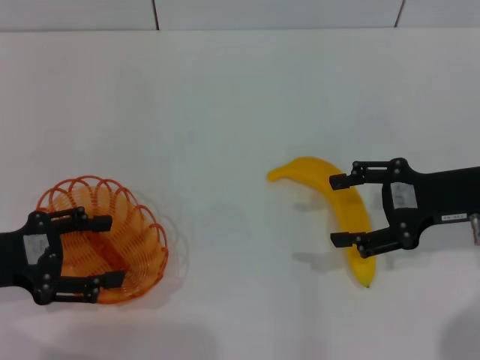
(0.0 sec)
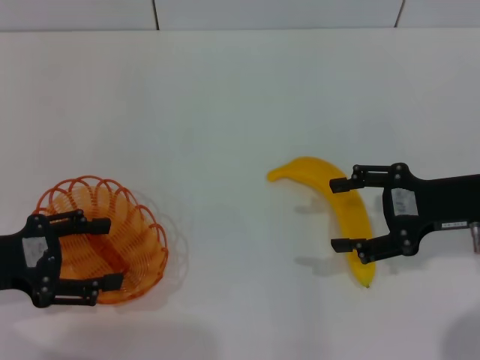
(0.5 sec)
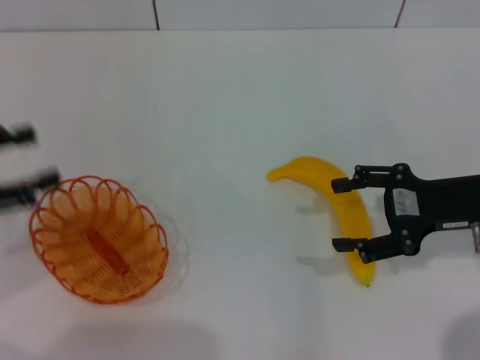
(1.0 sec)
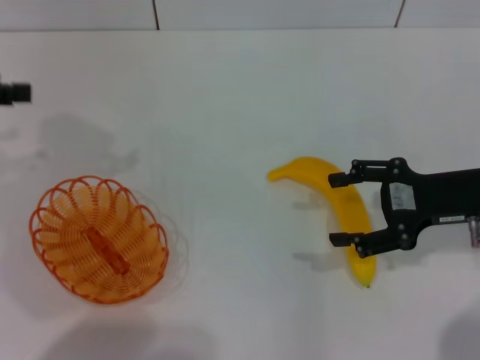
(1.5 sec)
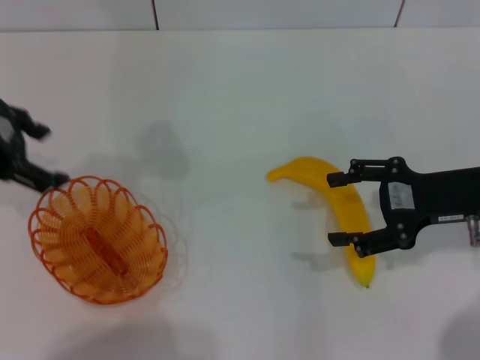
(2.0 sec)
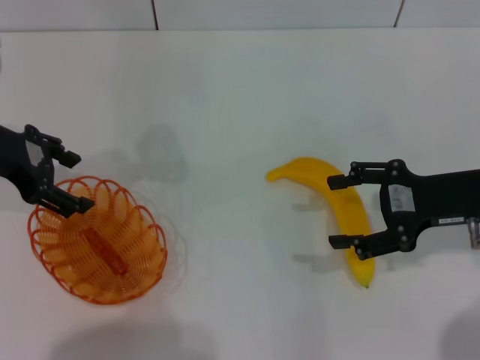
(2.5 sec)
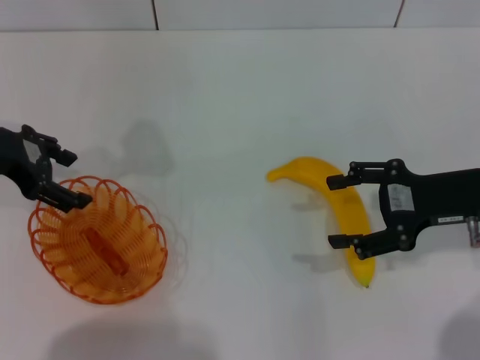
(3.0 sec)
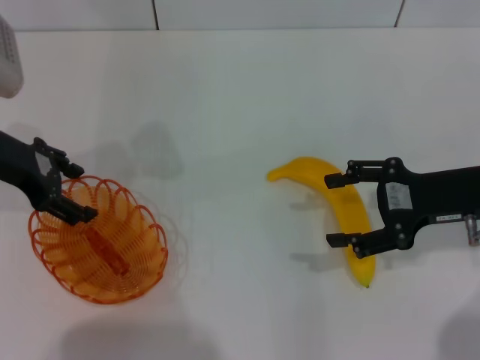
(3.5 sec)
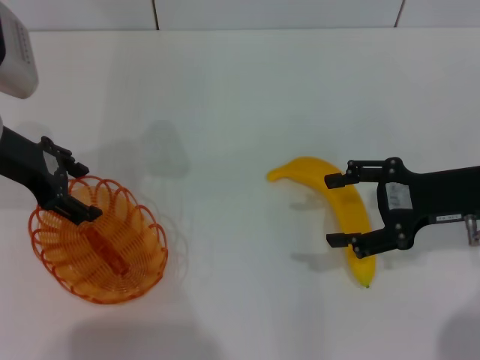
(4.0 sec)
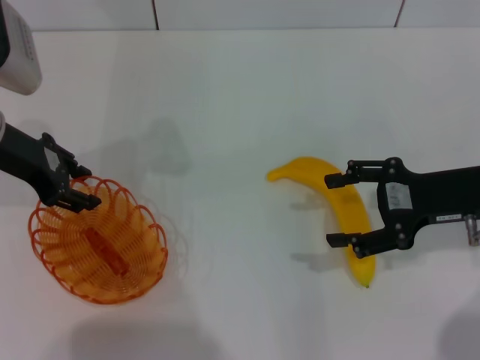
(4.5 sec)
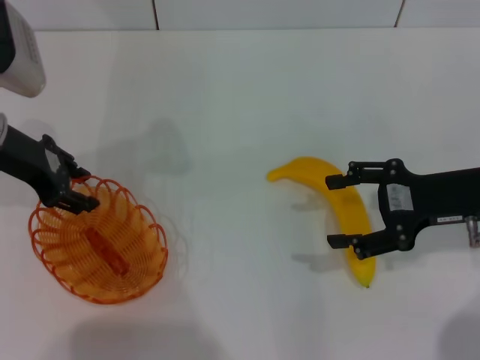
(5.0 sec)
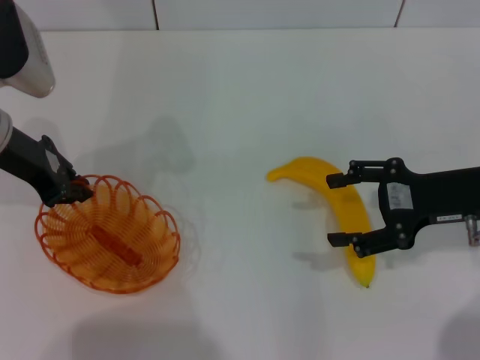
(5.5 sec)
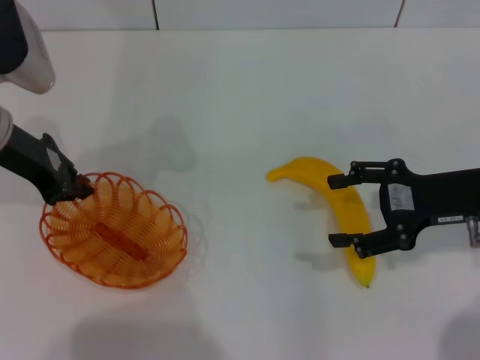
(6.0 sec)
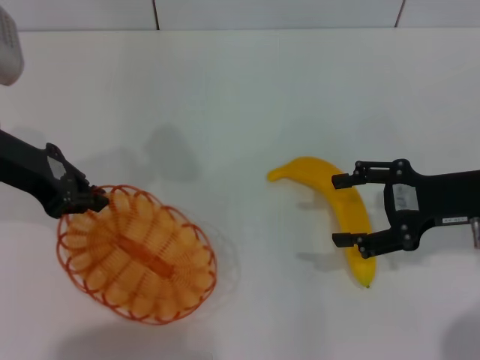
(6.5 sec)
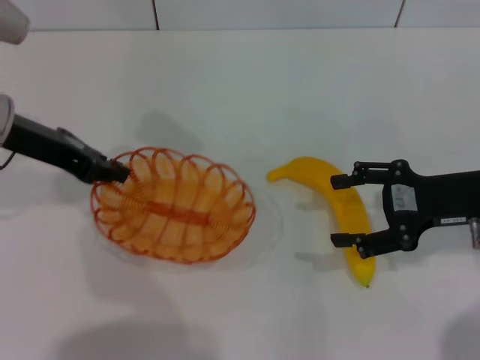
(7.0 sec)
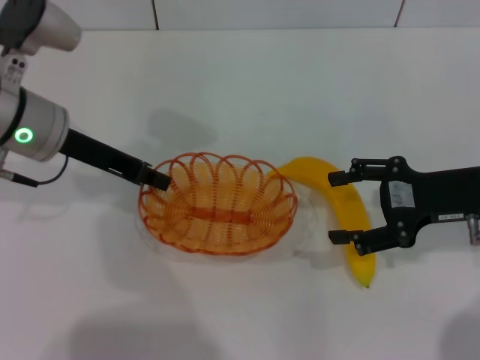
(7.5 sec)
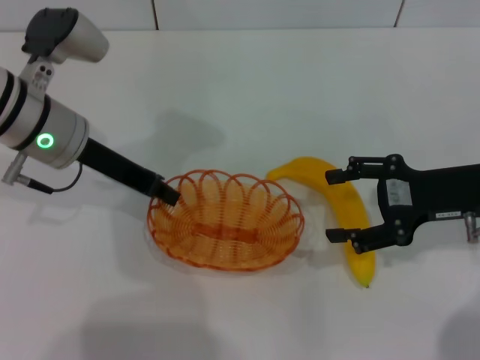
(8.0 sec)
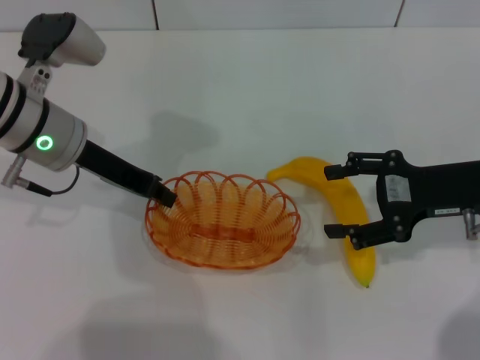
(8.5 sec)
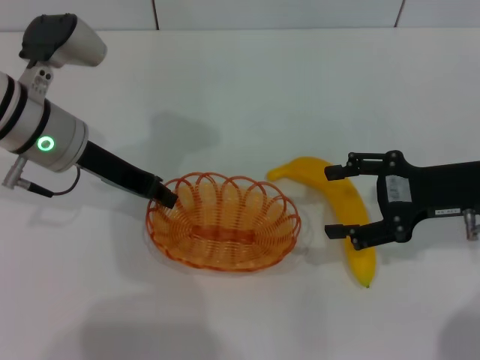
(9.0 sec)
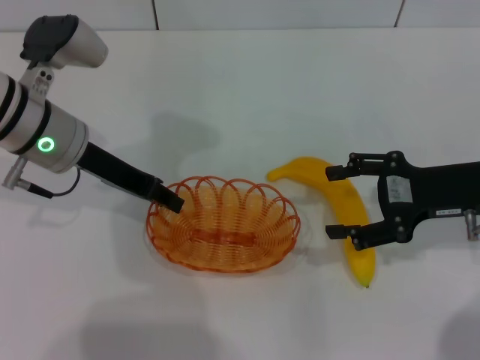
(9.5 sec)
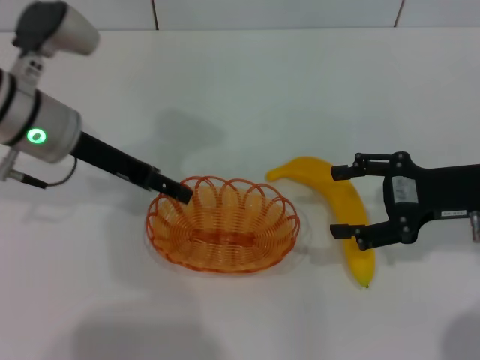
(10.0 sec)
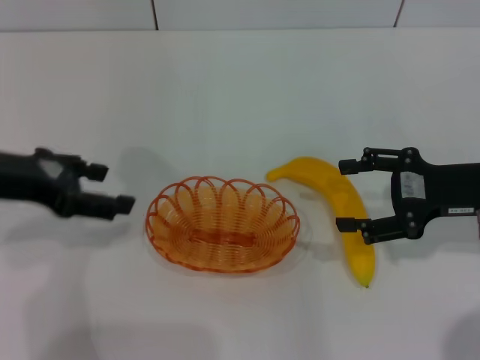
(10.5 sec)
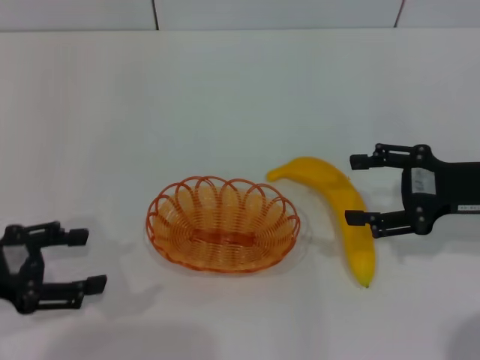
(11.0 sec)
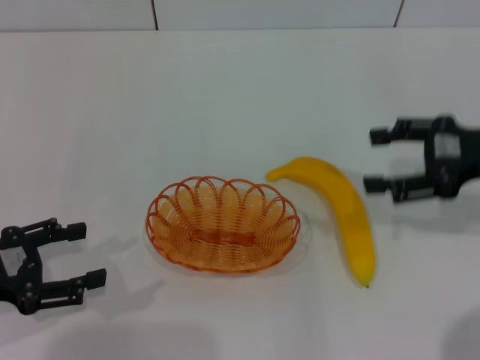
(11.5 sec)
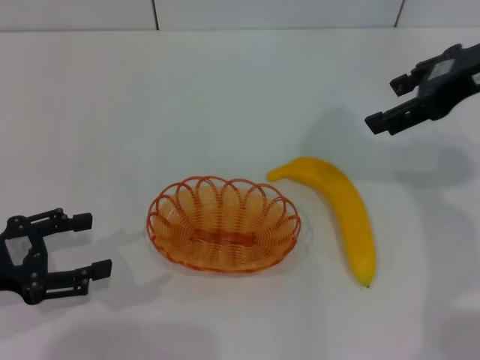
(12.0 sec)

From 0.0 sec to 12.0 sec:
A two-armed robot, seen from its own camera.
Step, from 0.0 sec to 6.5 sec: Pick up the basket with the left gripper.
Step, from 7.0 sec to 10.0 sec: Place the basket in the center of view with the left gripper.
From 0.0 sec to 2.0 sec: The left gripper goes about 15 cm upward and forward.
From 2.0 sec to 4.0 sec: The left gripper travels downward by roughly 5 cm.
From 4.0 sec to 6.0 sec: The left gripper closes up.
From 6.0 sec to 8.0 sec: The left gripper shifts about 5 cm to the right.
From 8.0 sec to 10.0 sec: The left gripper opens its fingers.
From 10.0 sec to 12.0 sec: The left gripper is displaced backward, to the left and downward by roughly 20 cm. The right gripper is displaced upward by some 15 cm.

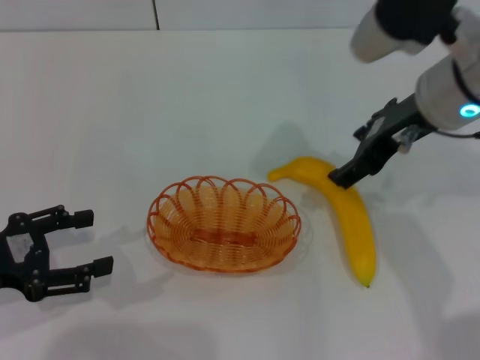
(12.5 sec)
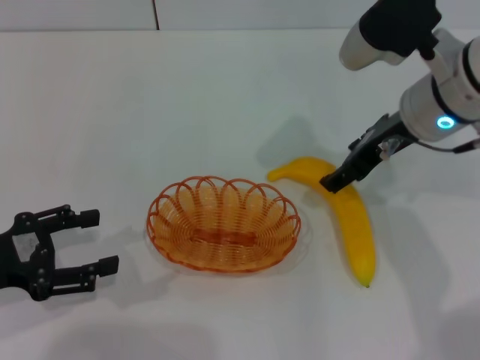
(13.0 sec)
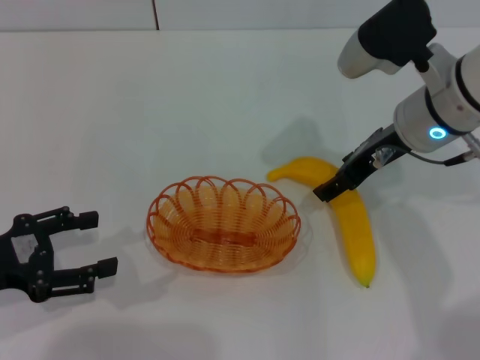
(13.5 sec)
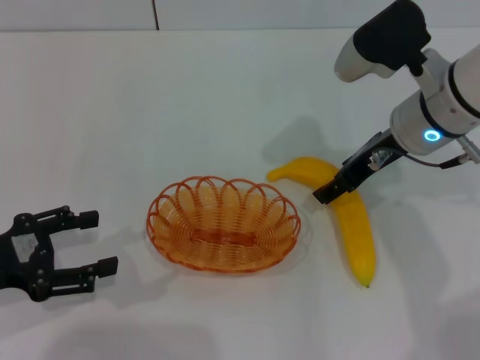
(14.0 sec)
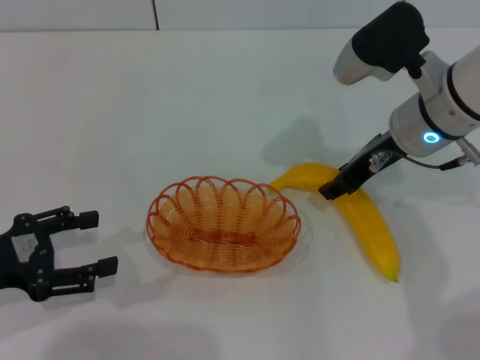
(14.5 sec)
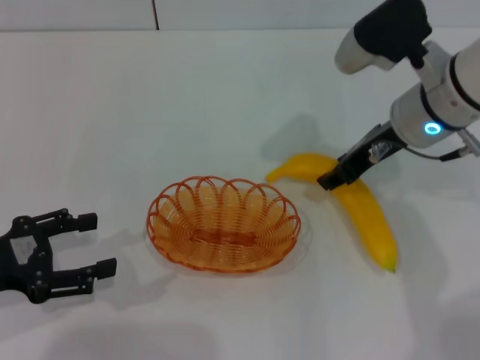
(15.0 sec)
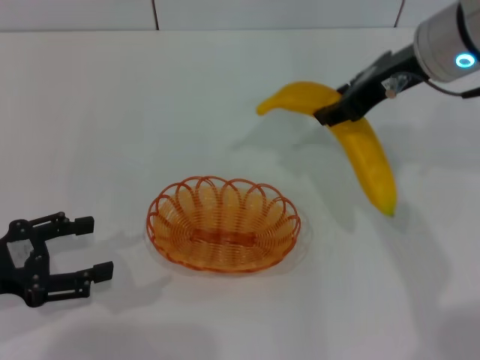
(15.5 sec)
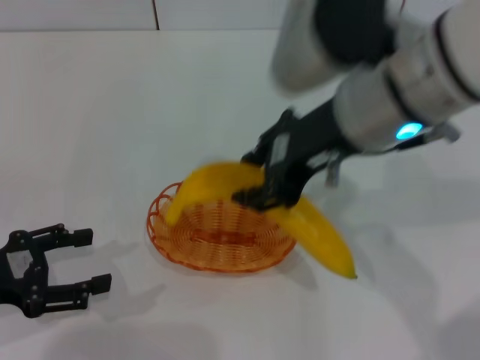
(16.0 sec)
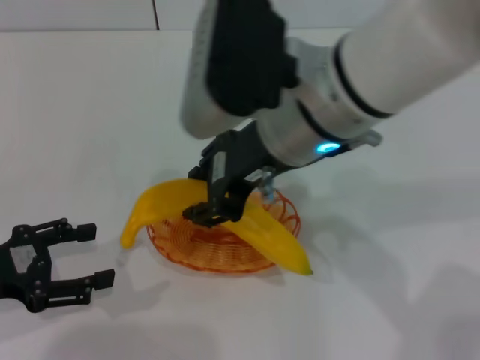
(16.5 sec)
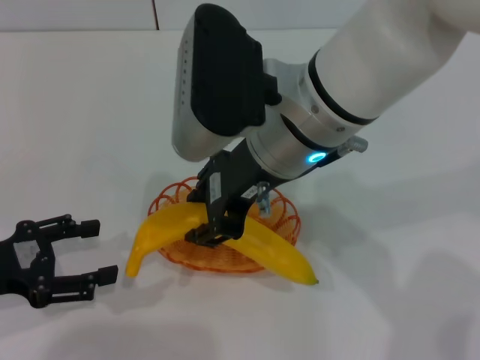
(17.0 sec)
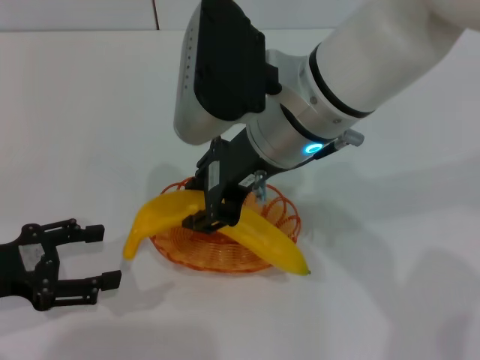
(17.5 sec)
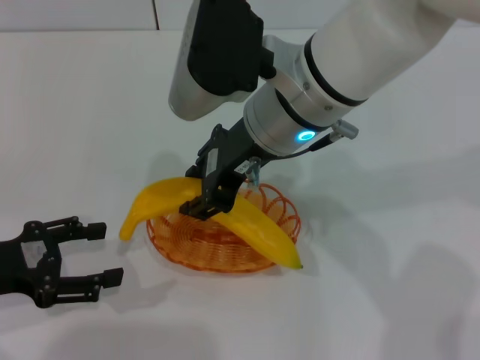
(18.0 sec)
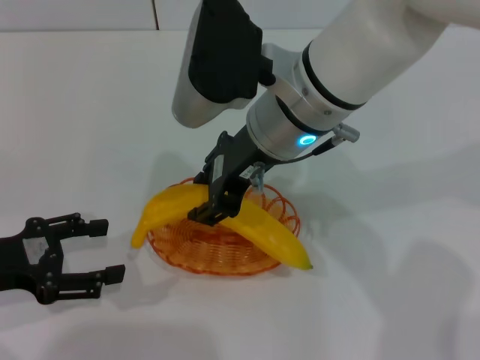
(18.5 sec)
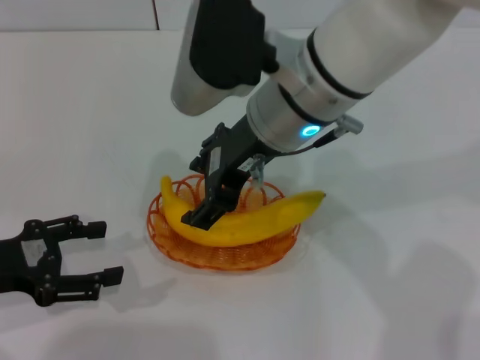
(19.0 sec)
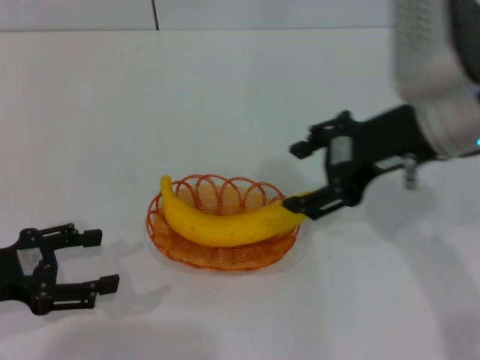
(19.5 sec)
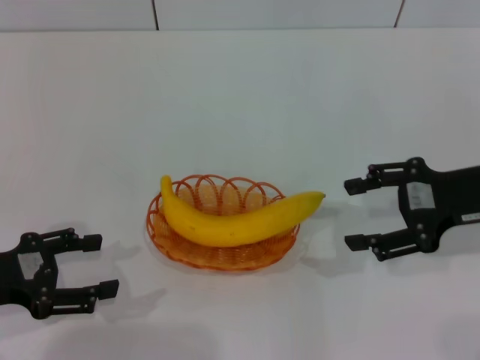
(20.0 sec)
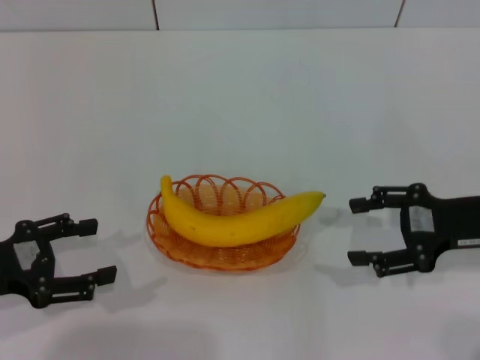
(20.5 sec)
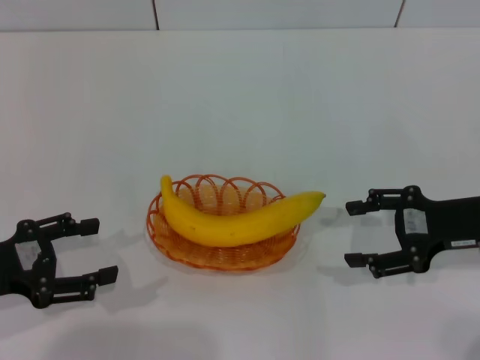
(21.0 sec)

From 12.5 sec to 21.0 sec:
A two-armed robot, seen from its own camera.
Step, from 12.5 sec to 15.5 sec: Pick up the banana with the right gripper.
Step, from 16.0 sec to 19.0 sec: Place the banana into the basket with the right gripper.
From 12.5 sec to 14.5 sec: The right gripper travels downward by some 5 cm.
From 14.5 sec to 16.5 sec: The right gripper shifts approximately 15 cm to the left, upward and backward.
From 16.5 sec to 19.0 sec: The right gripper opens its fingers.
From 19.0 sec to 21.0 sec: The right gripper goes approximately 30 cm to the right and downward.

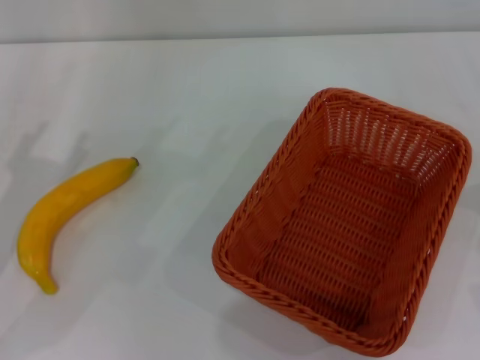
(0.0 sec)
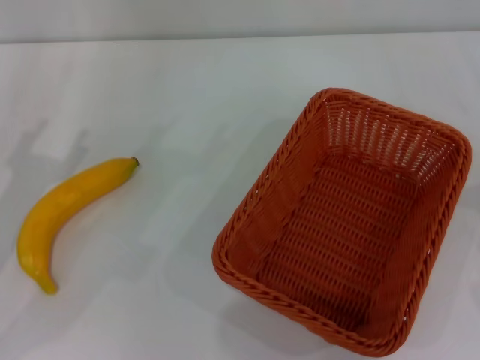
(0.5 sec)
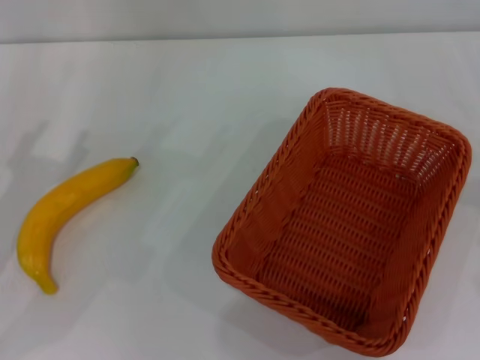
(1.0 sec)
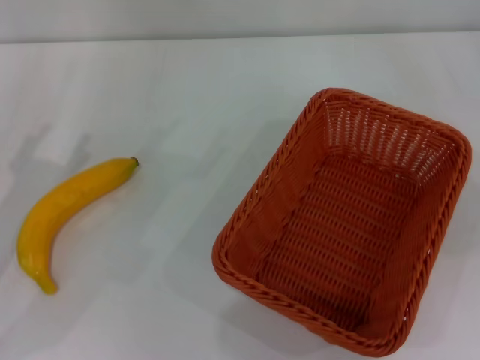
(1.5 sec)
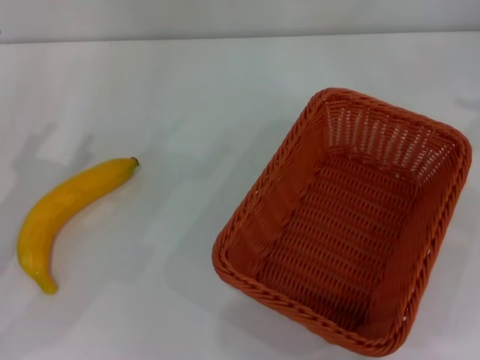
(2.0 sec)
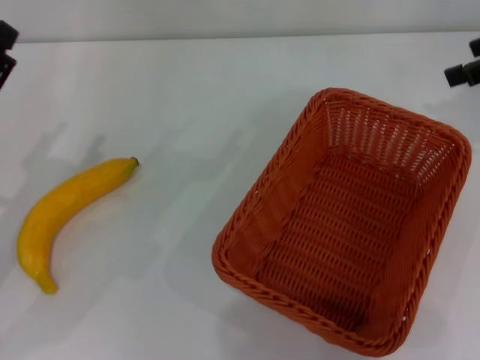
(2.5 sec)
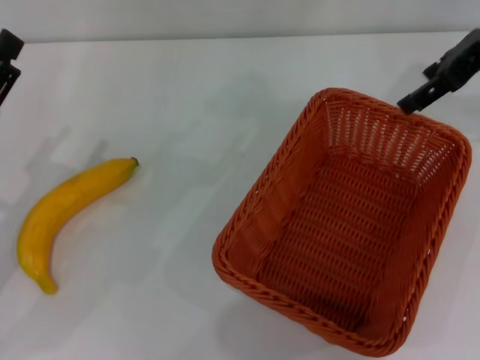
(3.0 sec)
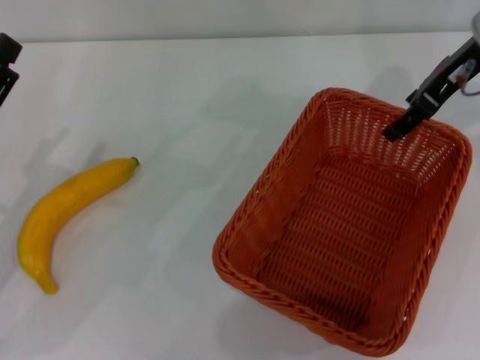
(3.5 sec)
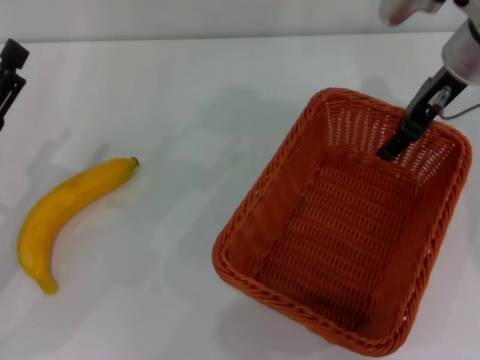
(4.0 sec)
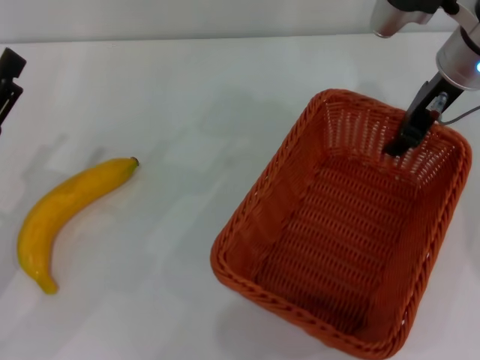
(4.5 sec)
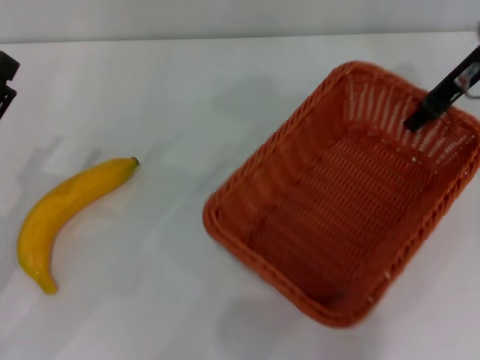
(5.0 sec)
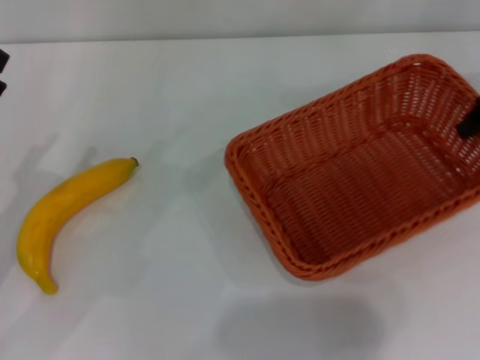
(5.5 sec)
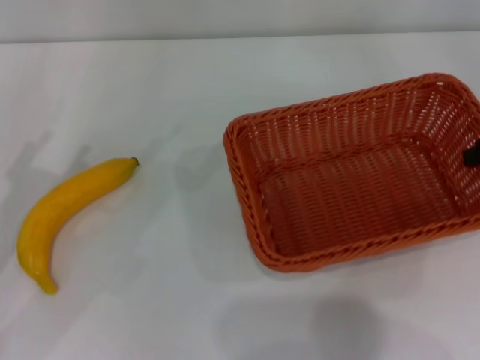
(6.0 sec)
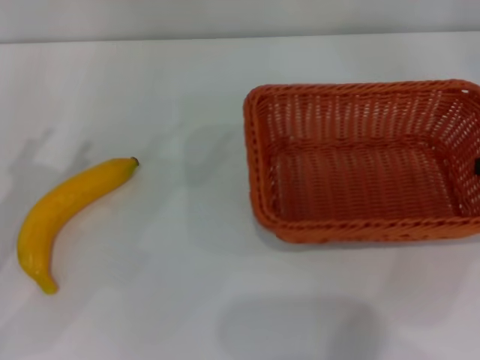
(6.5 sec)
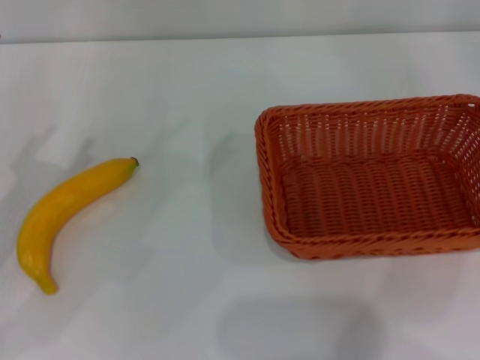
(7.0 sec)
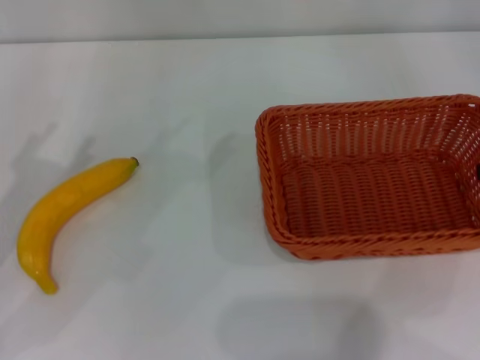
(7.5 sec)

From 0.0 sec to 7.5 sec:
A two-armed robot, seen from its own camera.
Step, from 0.0 sec to 5.0 sec: Pick up the light basket with the right gripper.
From 2.0 sec to 4.0 sec: The right gripper moves to the left and forward, roughly 20 cm.
From 4.0 sec to 5.5 sec: The right gripper heads to the right, covering approximately 10 cm, and closes its fingers.
From 5.5 sec to 7.5 sec: The right gripper goes some 10 cm backward and to the right, and opens its fingers.
